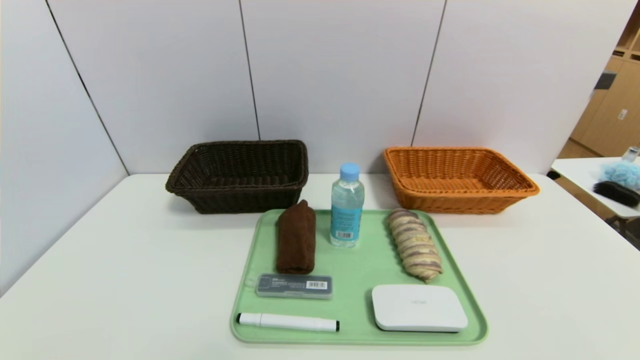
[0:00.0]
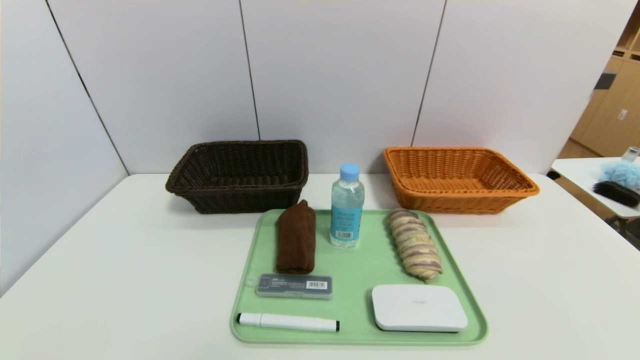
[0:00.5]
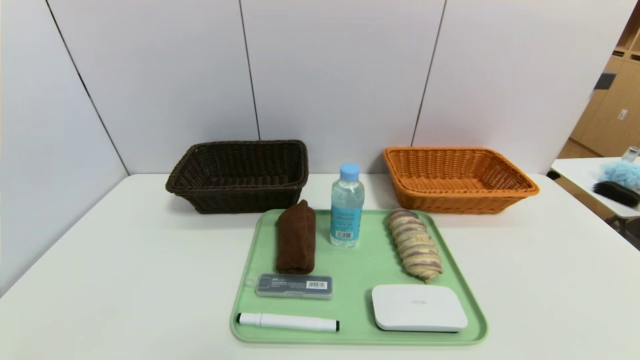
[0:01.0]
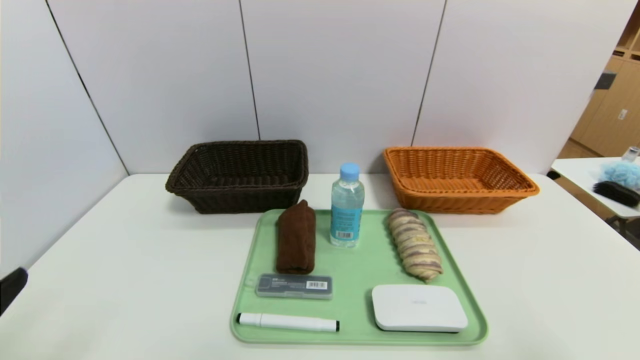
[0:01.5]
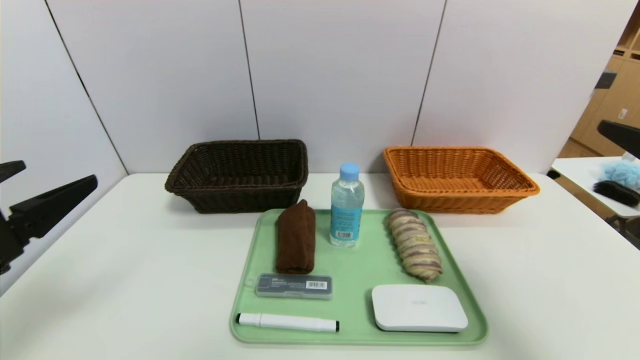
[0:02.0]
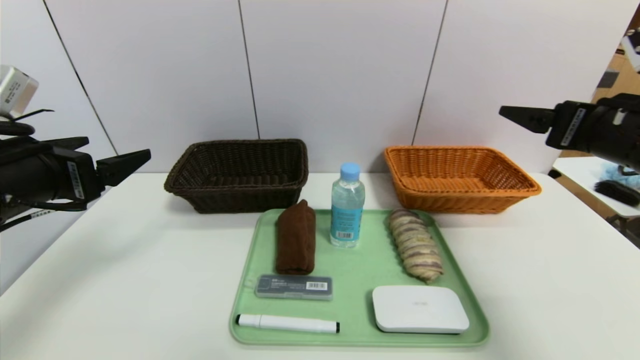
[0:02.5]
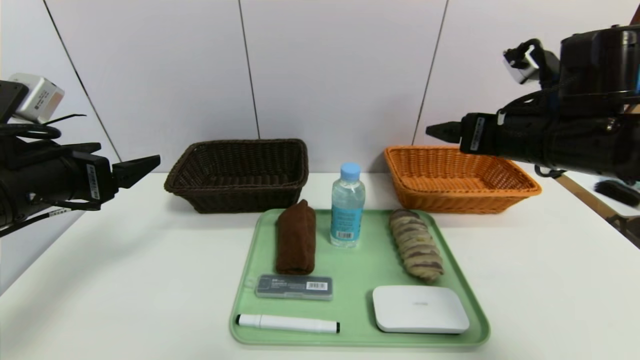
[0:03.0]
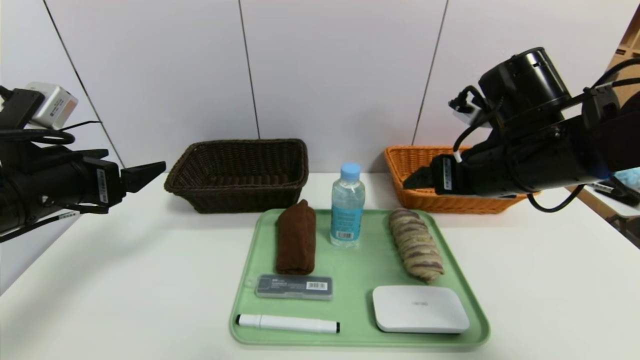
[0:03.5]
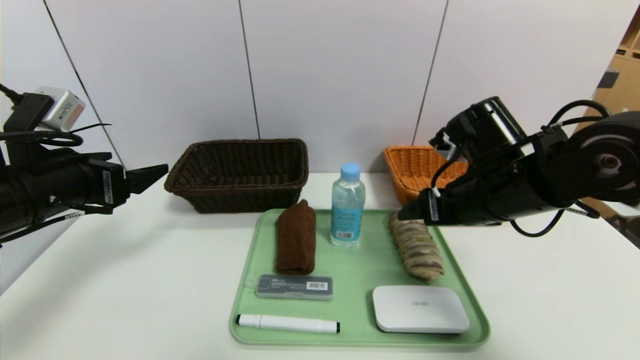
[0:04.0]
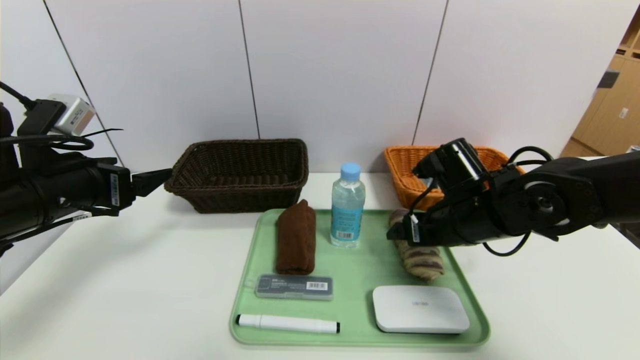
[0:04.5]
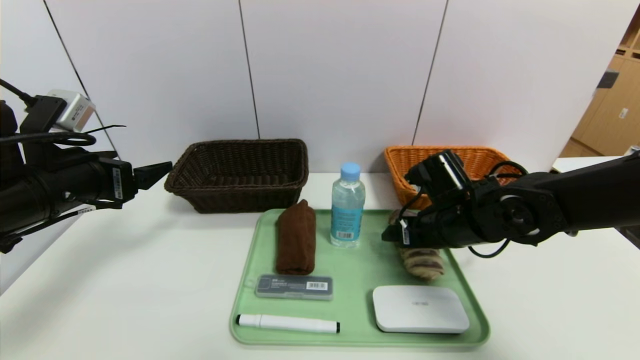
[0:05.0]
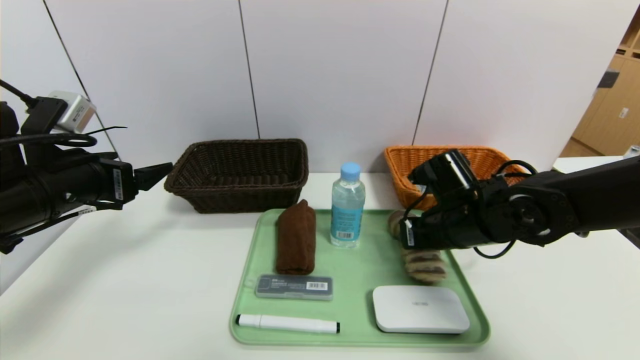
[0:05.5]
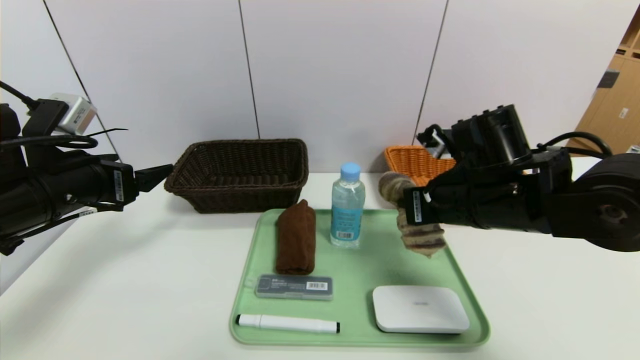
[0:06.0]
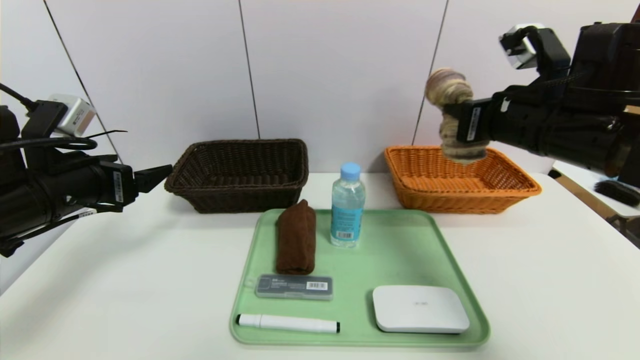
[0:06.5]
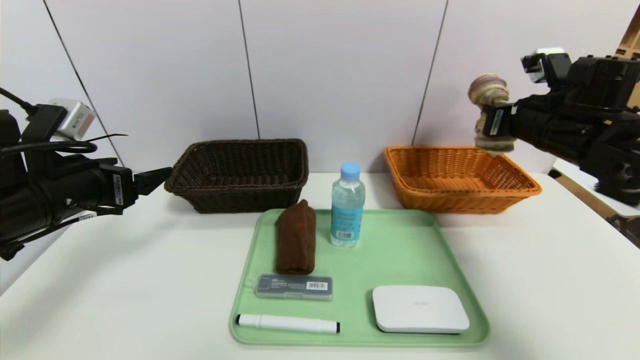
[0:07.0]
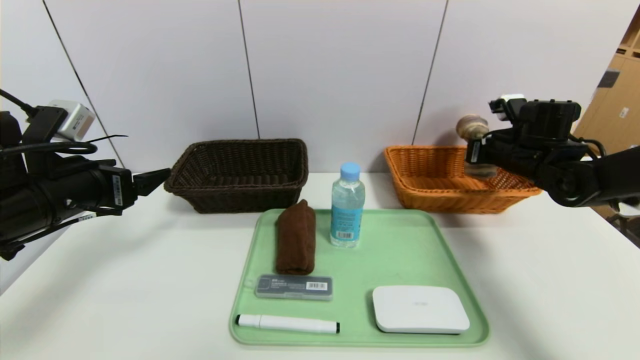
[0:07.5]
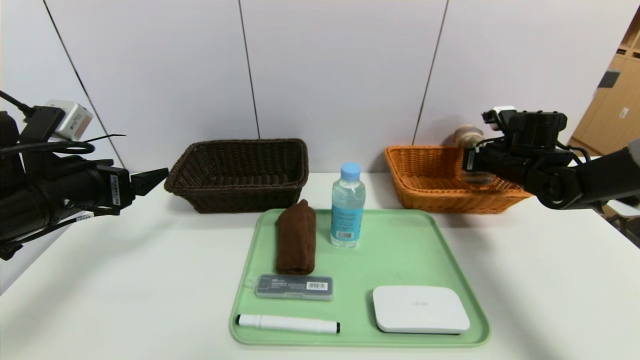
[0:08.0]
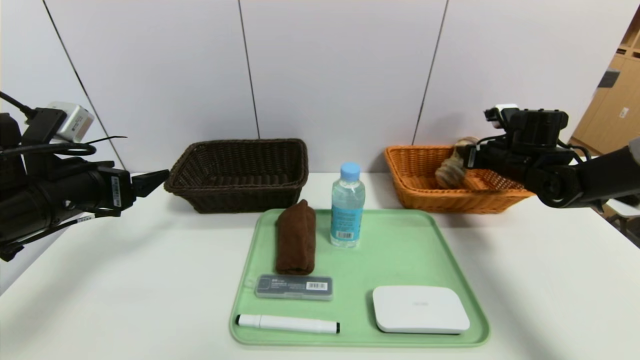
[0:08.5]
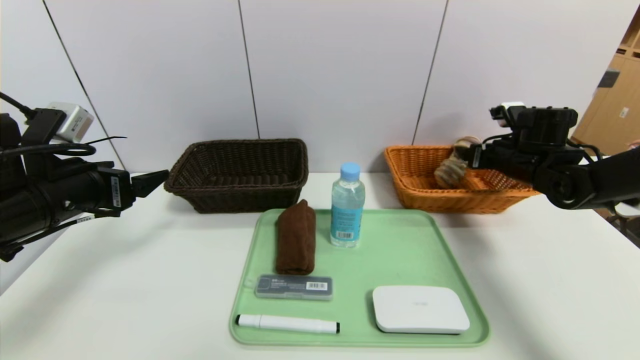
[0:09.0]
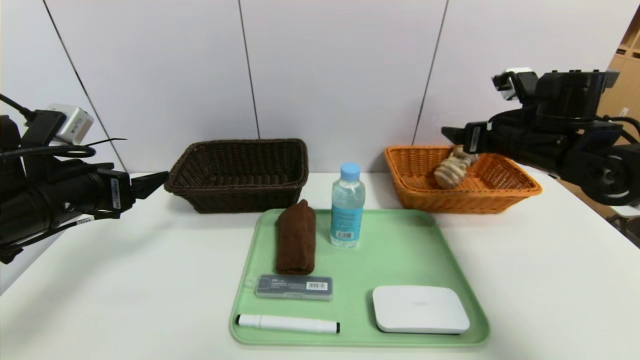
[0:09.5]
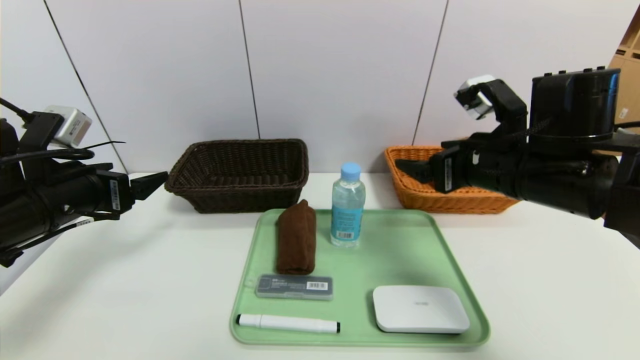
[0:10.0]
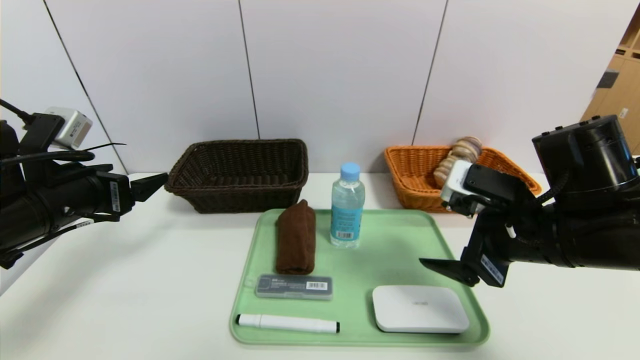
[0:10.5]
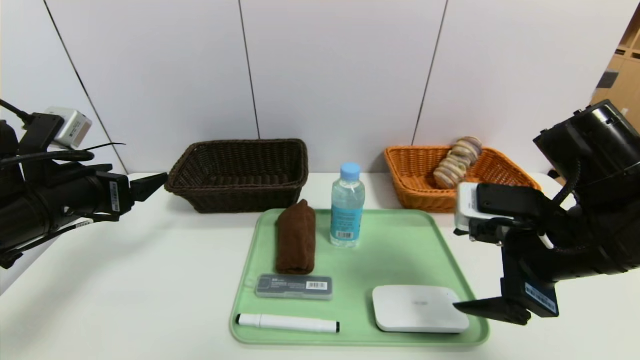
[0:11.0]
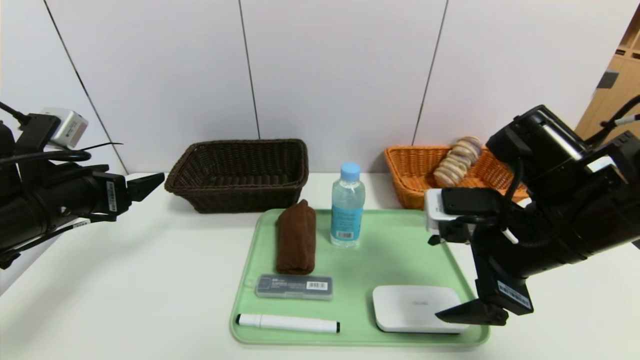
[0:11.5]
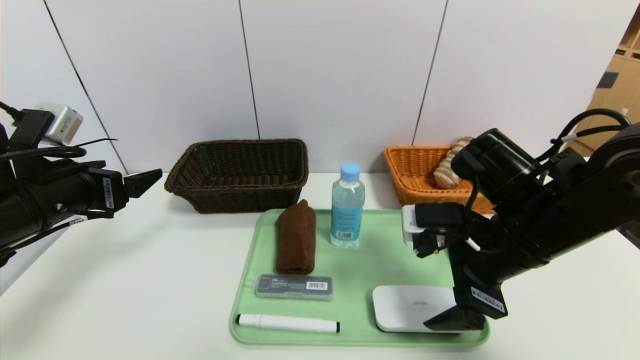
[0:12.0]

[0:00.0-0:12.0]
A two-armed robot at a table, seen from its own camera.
Task of the whole recording: place the food in the right basket with the right gripper, and place the non food items in the left basket with the left gripper.
Step, 0:00.0 to 0:09.0: Grasp the long bread and put it in the right basket.
0:00.0 to 0:02.0: The two grippers go approximately 25 cm upward and forward.
0:02.0 to 0:04.0: The right gripper is displaced forward, to the left and downward by about 20 cm; the left gripper heads forward, covering some 10 cm.
0:04.0 to 0:06.0: The right gripper travels downward and back again, roughly 10 cm each way, and closes up.
0:06.0 to 0:08.0: The right gripper heads to the right and forward, covering some 25 cm.
0:08.0 to 0:10.0: The right gripper moves backward, to the left and upward, roughly 25 cm, and opens up.
0:10.0 to 0:12.0: The right gripper ends up roughly 5 cm from where it was.

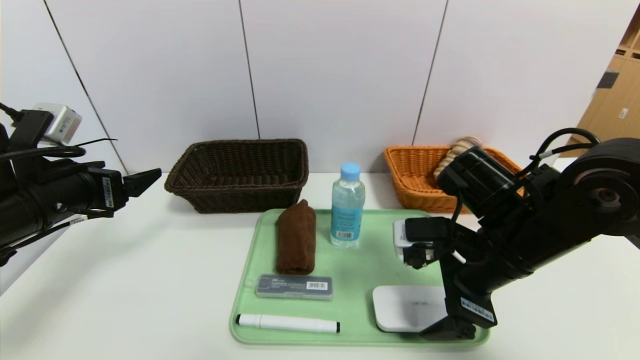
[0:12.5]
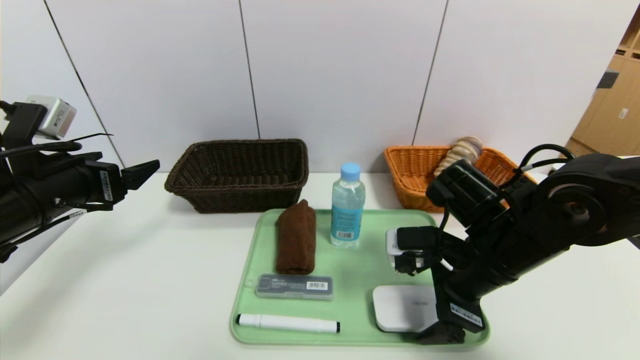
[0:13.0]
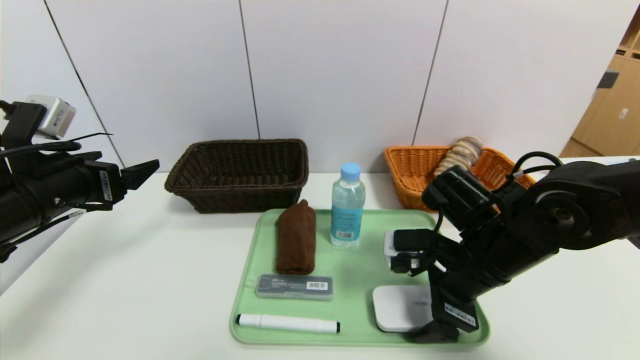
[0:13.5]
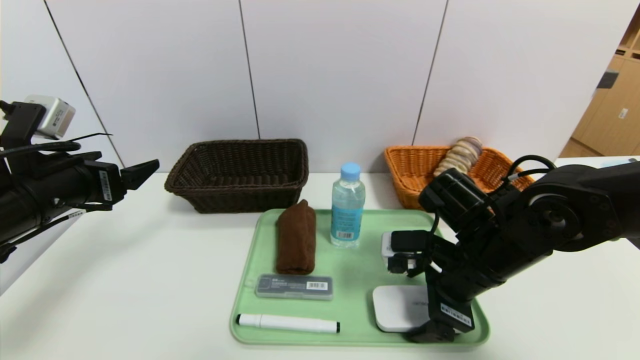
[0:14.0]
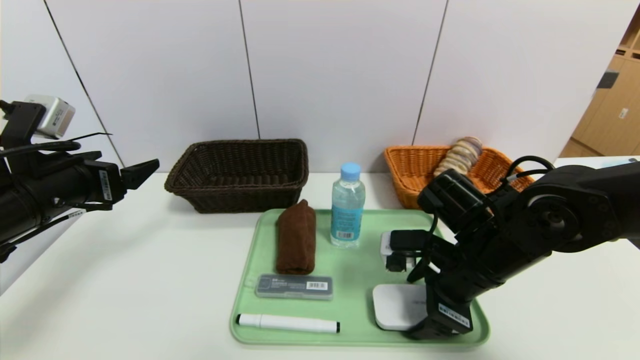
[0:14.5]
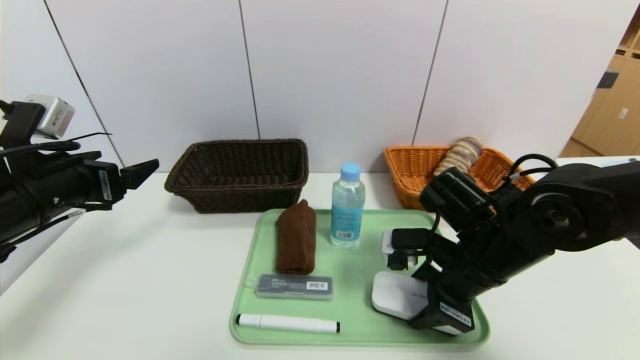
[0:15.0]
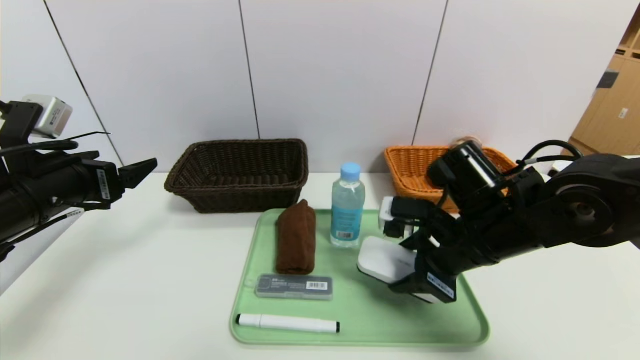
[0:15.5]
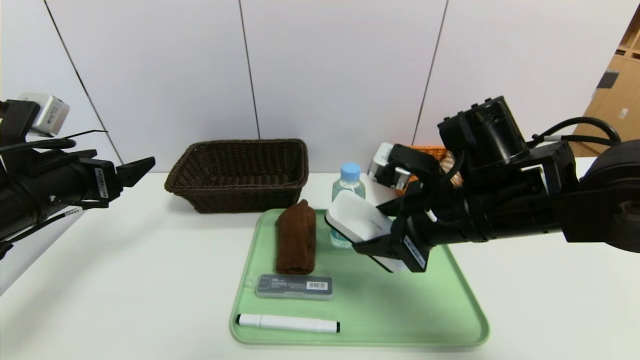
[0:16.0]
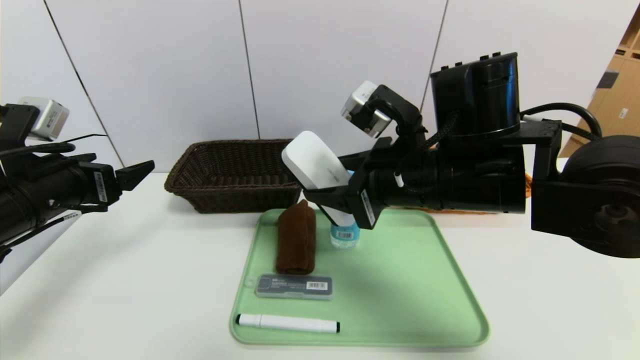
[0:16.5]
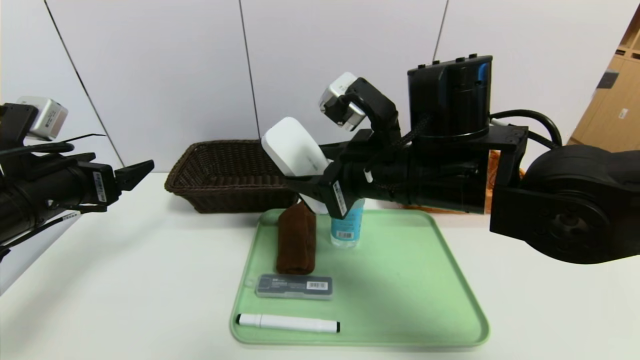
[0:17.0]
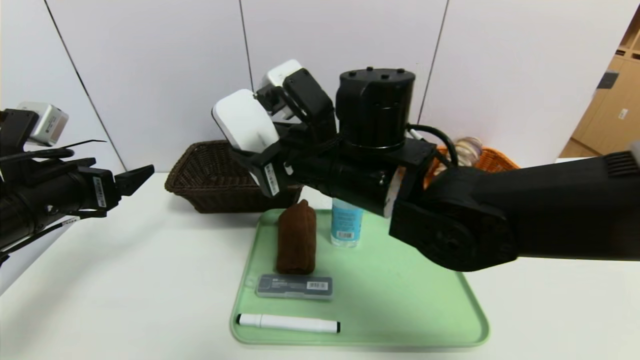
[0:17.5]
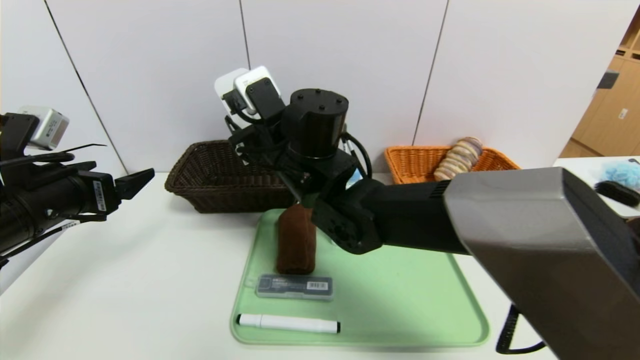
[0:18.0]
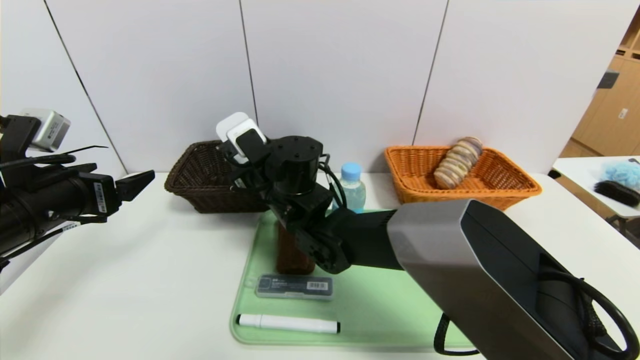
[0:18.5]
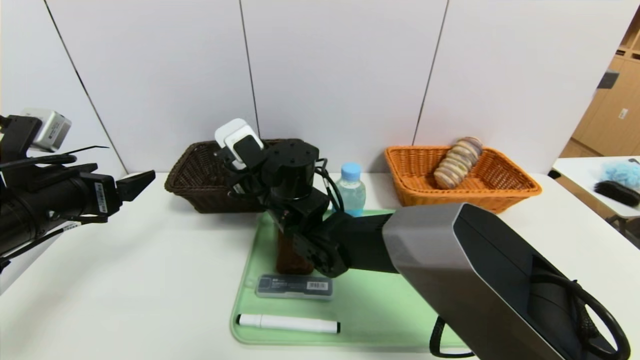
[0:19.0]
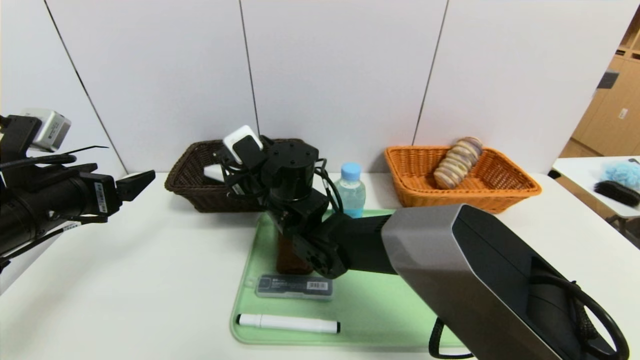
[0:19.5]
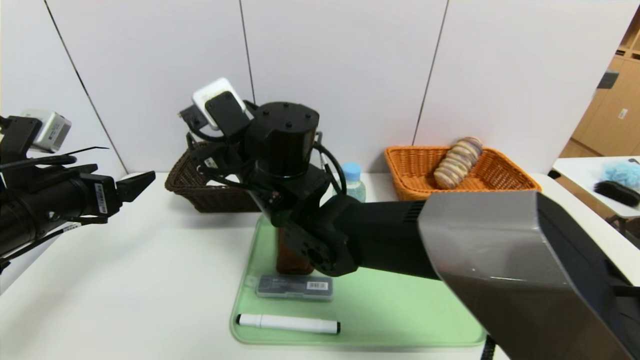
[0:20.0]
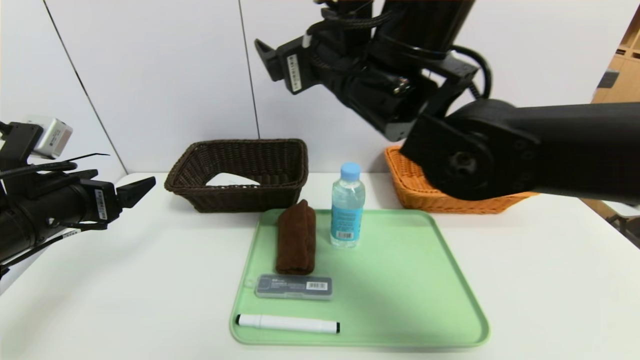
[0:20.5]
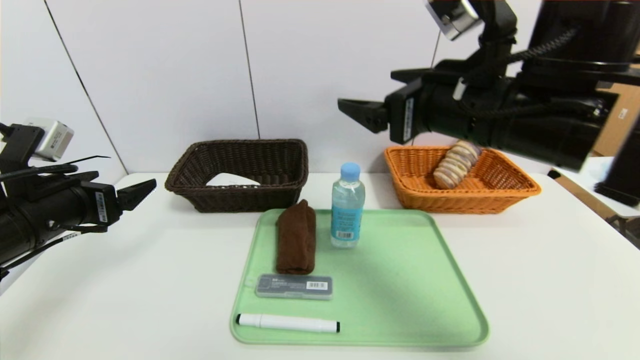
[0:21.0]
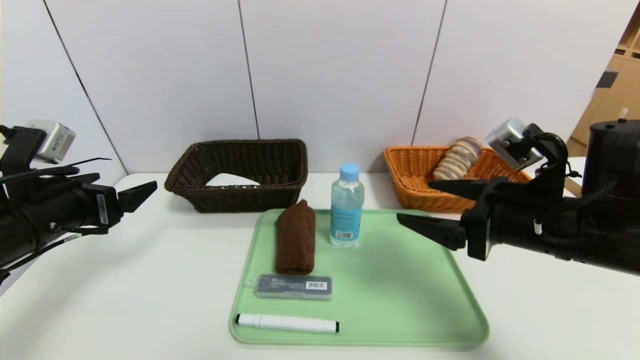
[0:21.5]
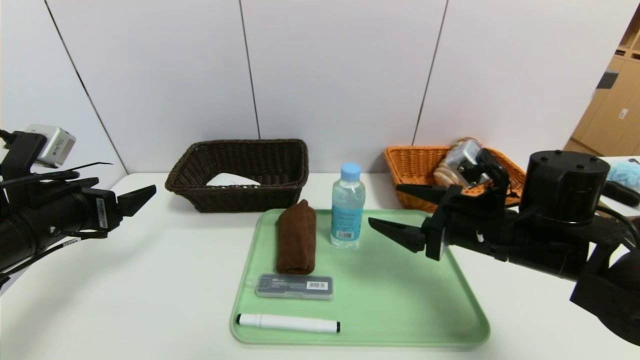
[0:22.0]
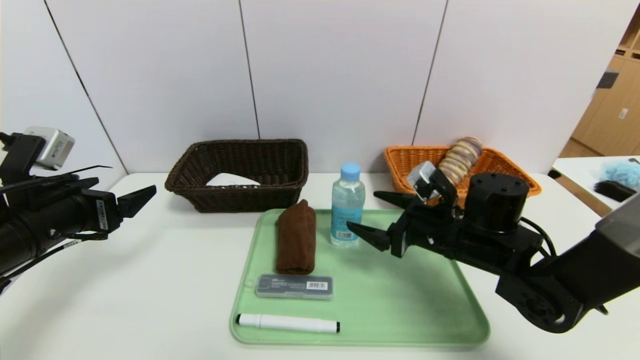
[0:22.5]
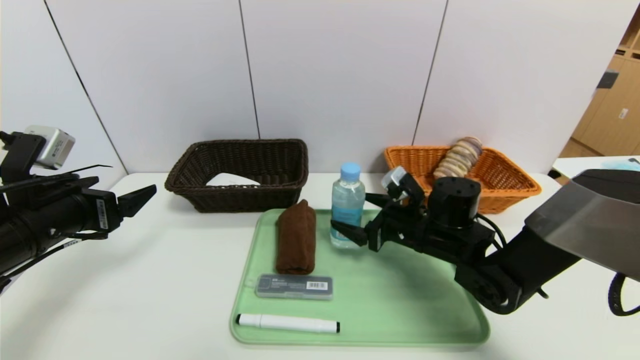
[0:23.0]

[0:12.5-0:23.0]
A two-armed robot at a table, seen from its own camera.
Task of the whole recording: place the food in the right basket with the right gripper, and place the non food items in the left basket with the left gripper.
0:12.5 to 0:14.5: The grippers make only small movements.
0:14.5 to 0:16.5: The right gripper travels upward and to the left by roughly 15 cm.
0:16.5 to 0:19.0: The right gripper shifts approximately 20 cm to the left, forward and downward.
0:19.0 to 0:21.0: The right gripper goes approximately 30 cm to the right, upward and backward, and opens up.
0:21.0 to 0:23.0: The right gripper heads downward and forward, covering about 25 cm.
